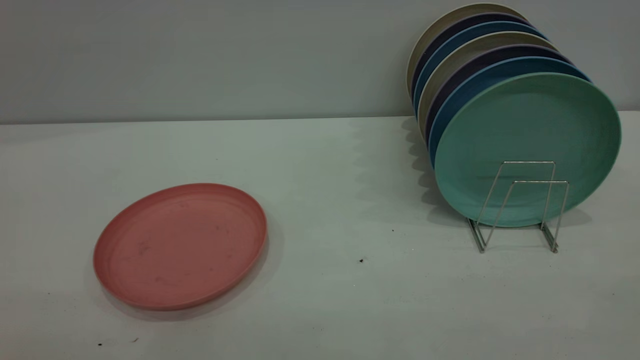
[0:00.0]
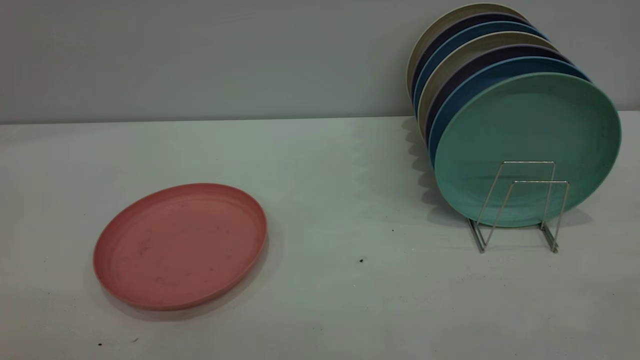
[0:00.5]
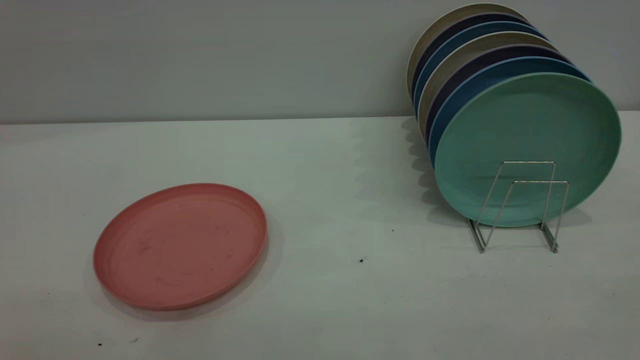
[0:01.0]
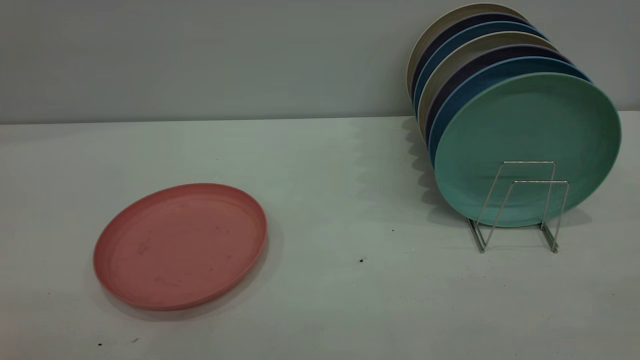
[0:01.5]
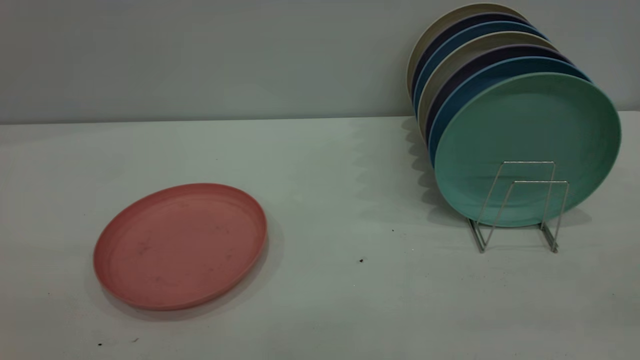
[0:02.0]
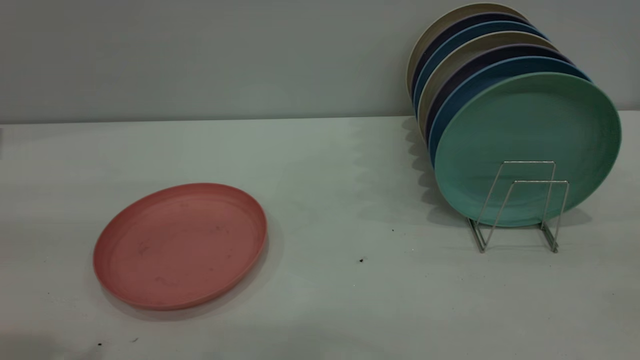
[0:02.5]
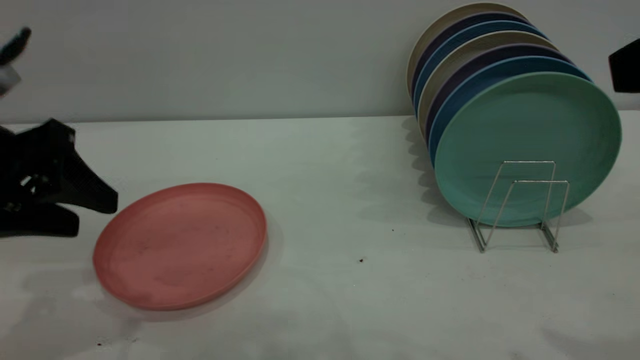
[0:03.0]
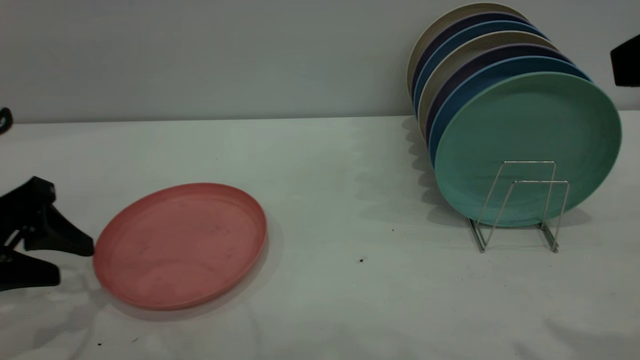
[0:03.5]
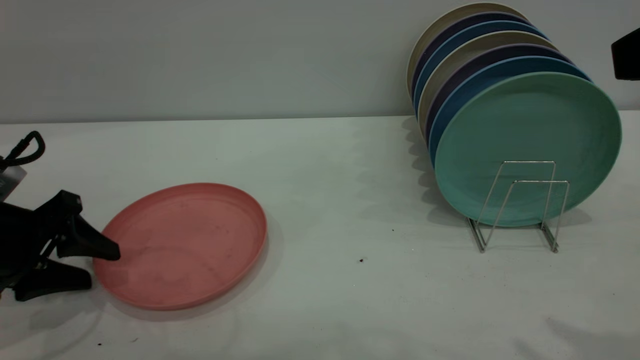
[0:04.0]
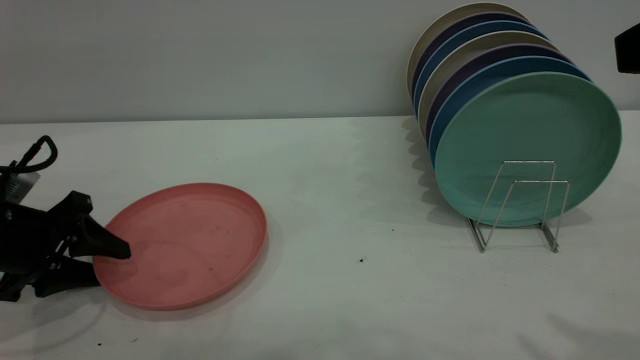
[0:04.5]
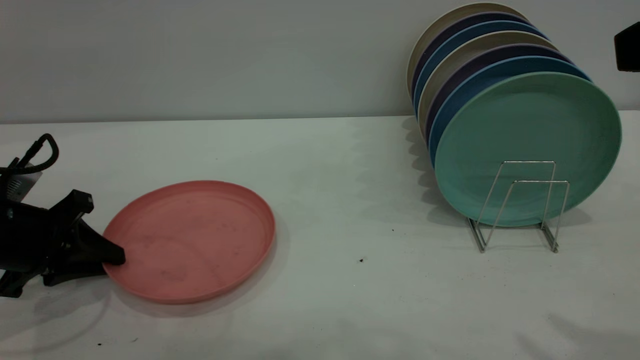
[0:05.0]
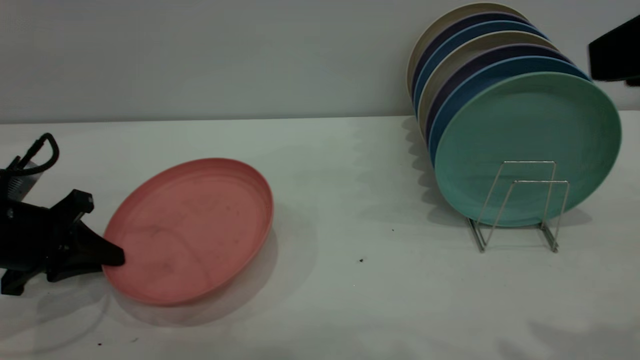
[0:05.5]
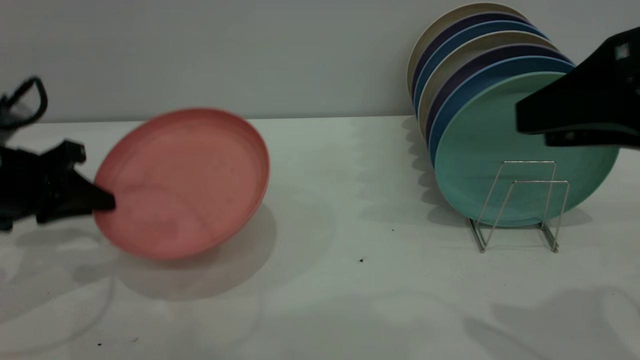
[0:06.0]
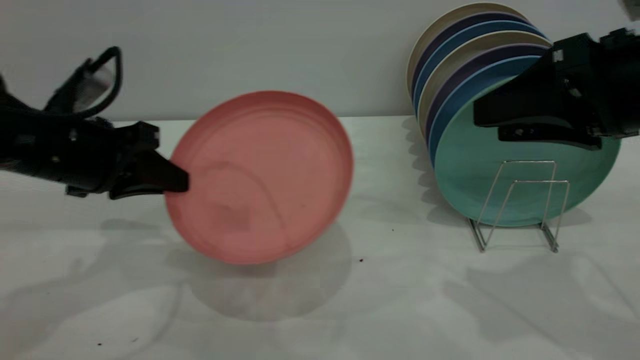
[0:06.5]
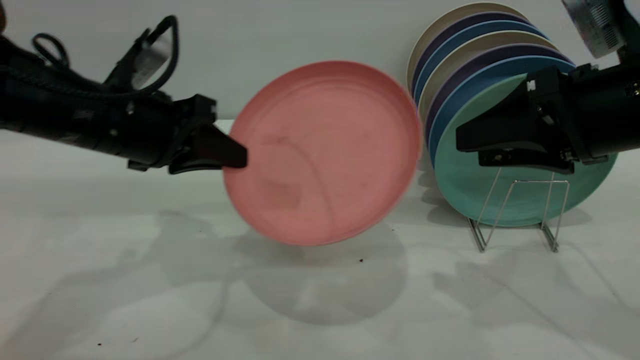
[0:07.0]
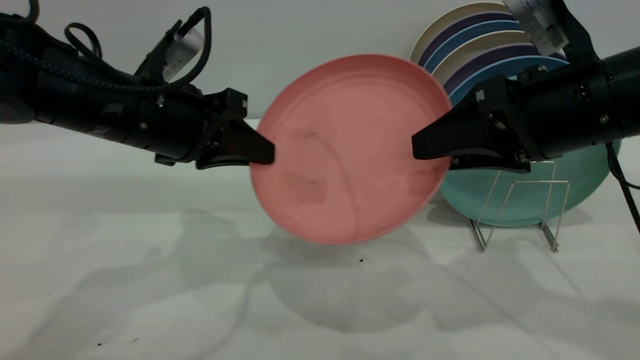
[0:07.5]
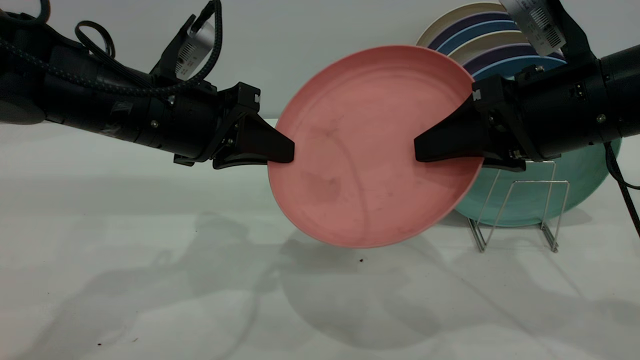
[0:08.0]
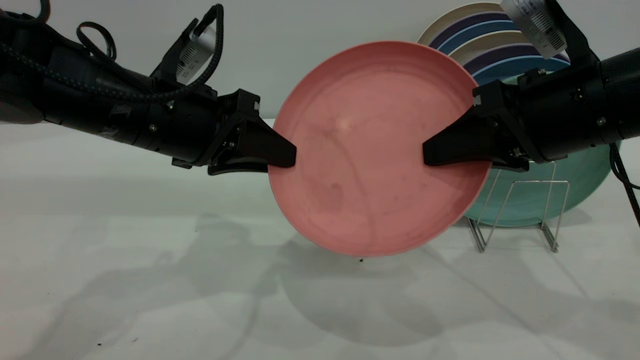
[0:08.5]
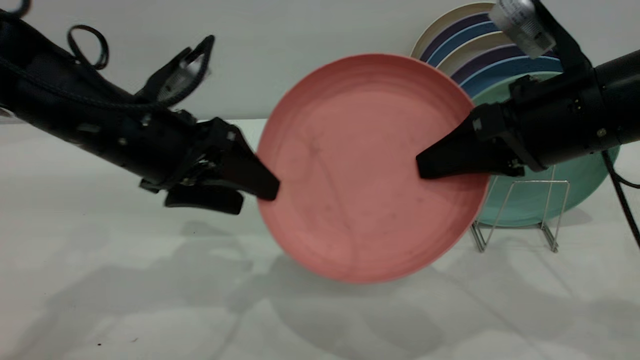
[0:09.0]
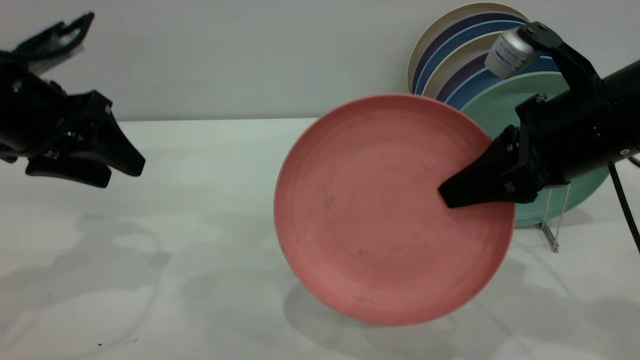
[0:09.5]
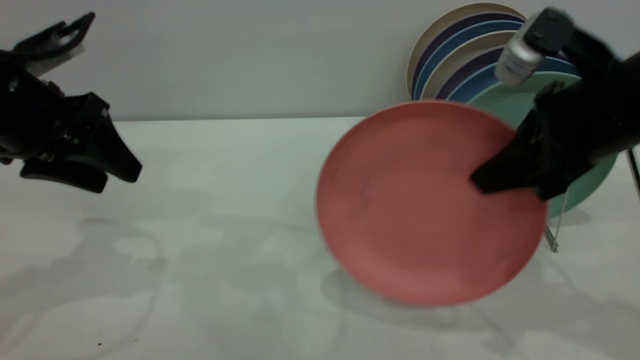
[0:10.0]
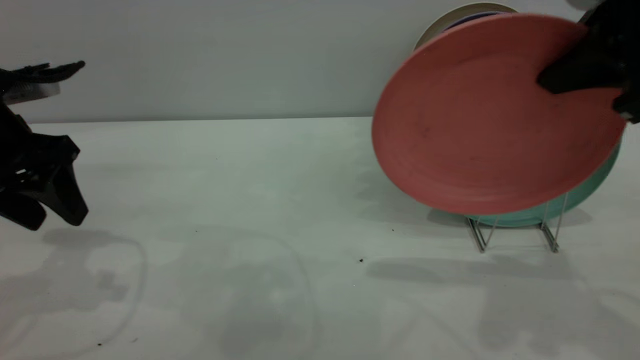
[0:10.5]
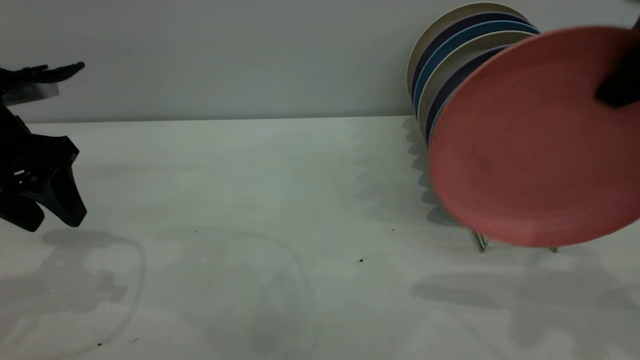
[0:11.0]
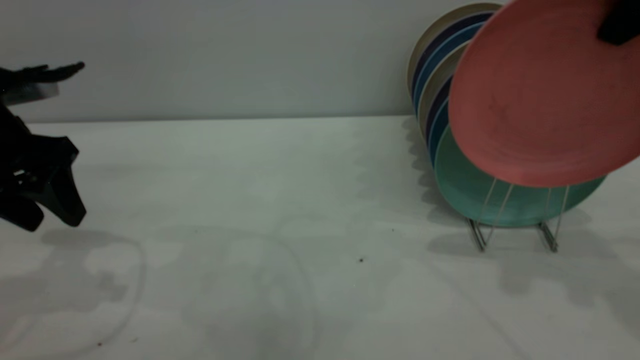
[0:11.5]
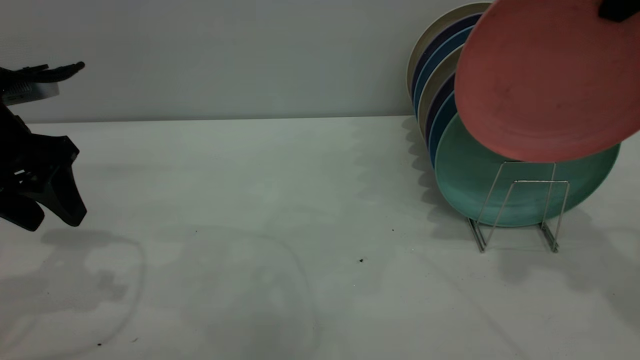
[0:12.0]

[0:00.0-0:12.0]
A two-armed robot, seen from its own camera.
Task of the whole recording: the left gripper grasp the pink plate, the left gripper pass the pink plate to the right gripper, and the right gripper place the pink plate on the plate rack.
Step, 0:00.0 to 0:05.5: Pick up the plate with the left gripper.
Step, 0:06.0 to 0:09.0: Pass the plate from the left gripper to the right gripper.
0:02.0 to 0:04.0: The left gripper goes roughly 35 cm downward and forward.
0:04.0 to 0:06.0: The left gripper moves some 5 cm, and closes its fingers, while the right gripper moves downward, some 5 cm.
0:06.0 to 0:08.0: The right gripper moves forward and downward, about 10 cm, and closes, while the left gripper travels to the right by about 15 cm.
0:08.0 to 0:10.0: The left gripper is displaced to the left by about 10 cm, and opens its fingers; the right gripper closes up.
0:10.0 to 0:12.0: The right gripper goes approximately 15 cm upward.

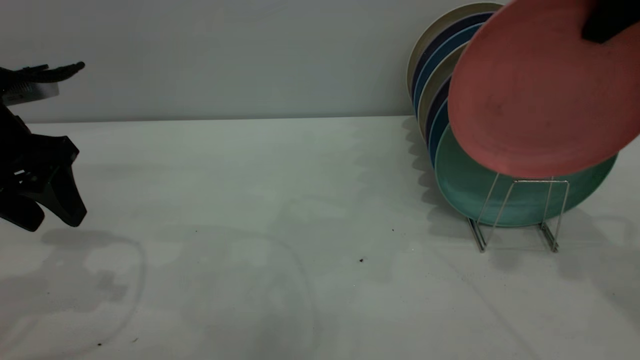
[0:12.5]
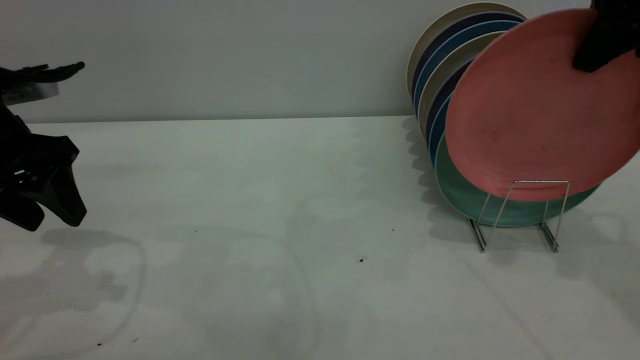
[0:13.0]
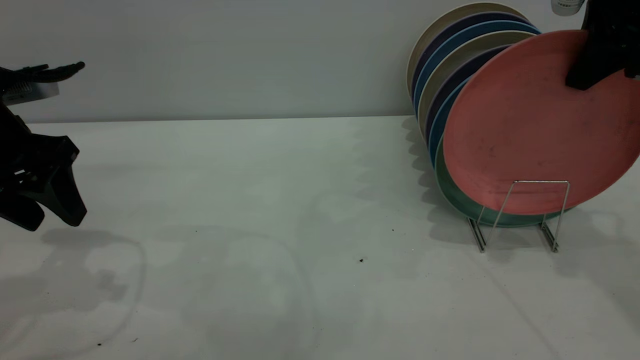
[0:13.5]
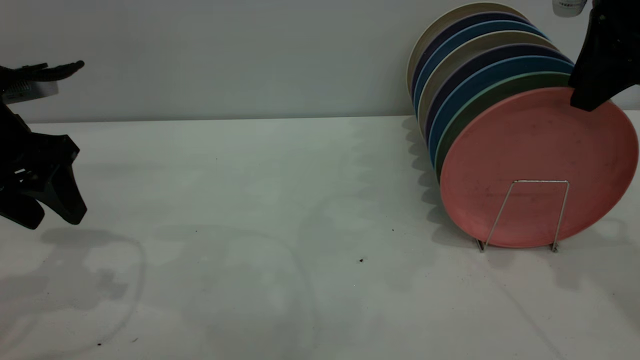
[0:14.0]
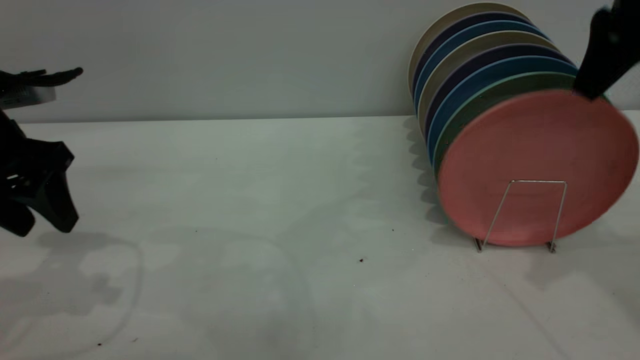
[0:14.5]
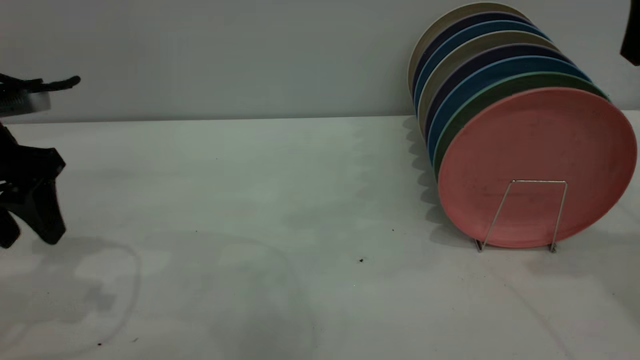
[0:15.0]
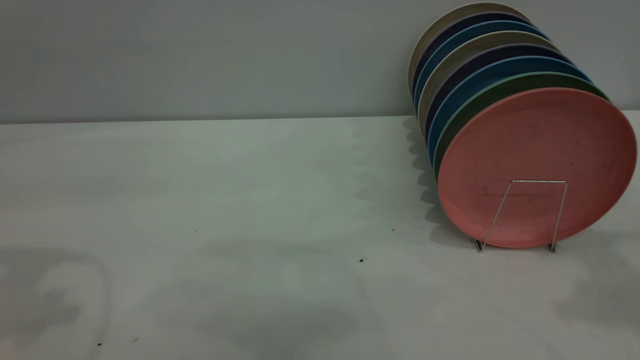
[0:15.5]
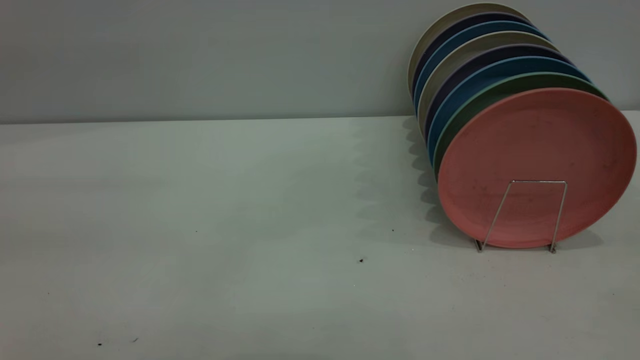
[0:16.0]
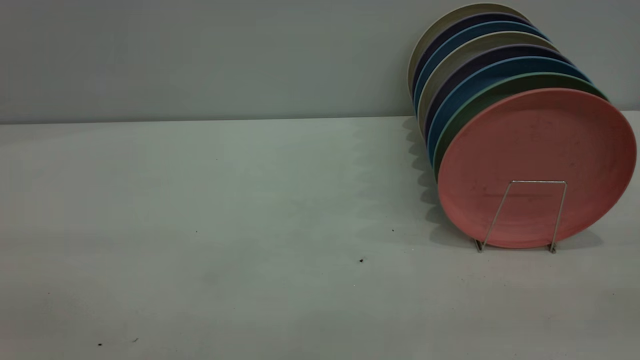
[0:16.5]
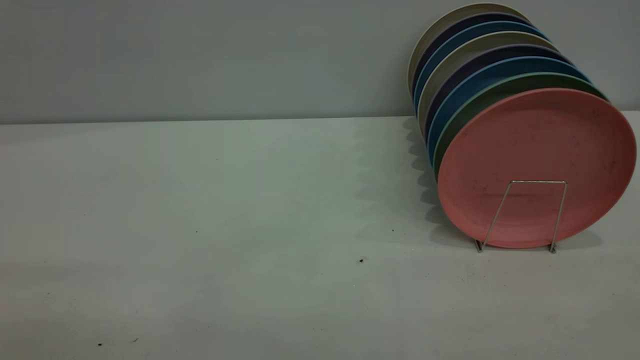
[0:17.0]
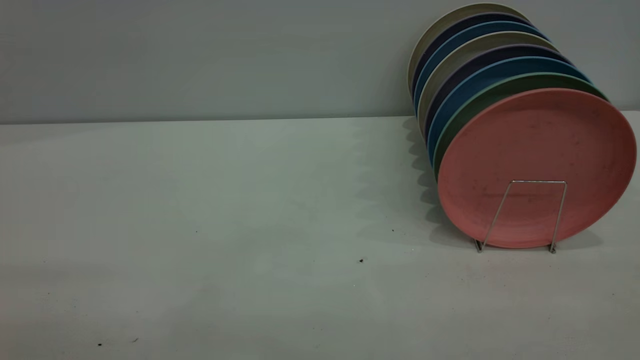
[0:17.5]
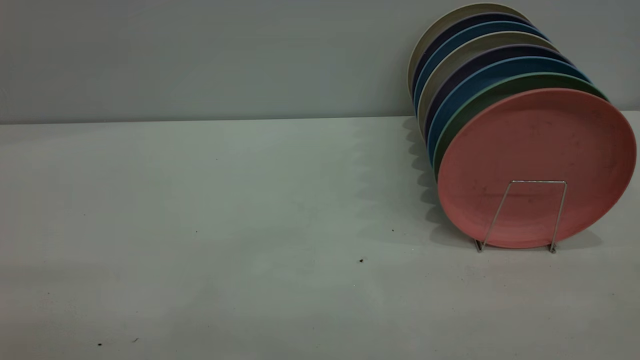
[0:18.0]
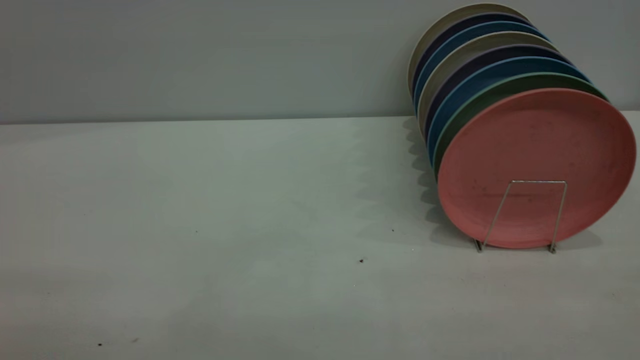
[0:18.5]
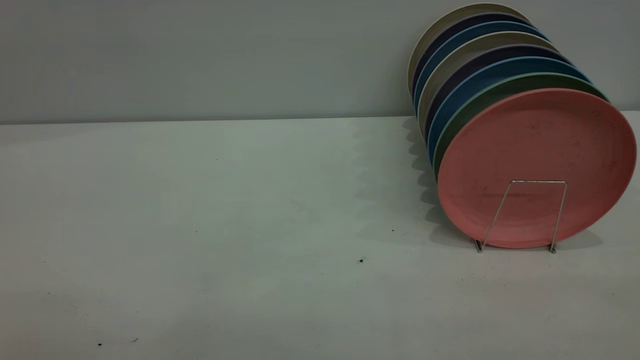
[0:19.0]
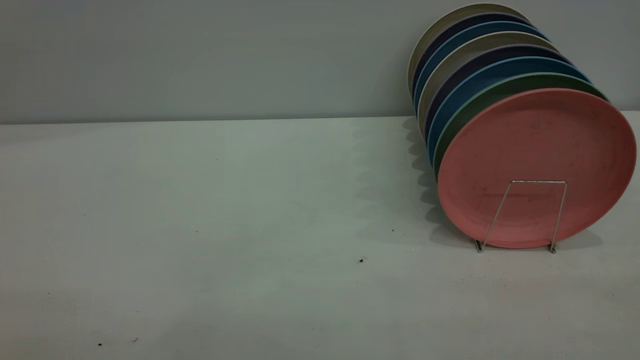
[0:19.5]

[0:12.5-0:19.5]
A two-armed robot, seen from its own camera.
Task of the whole recording: the left gripper grasp the pink plate, the left gripper pass the pink plate to the right gripper, and the right gripper place the pink plate on the plate rack.
Step, 0:12.5 to 0:14.5: Place the plate on the shelf.
0:12.5 to 0:14.5: The right gripper opens its fingers.
0:14.5 to 0:16.0: The right gripper is displaced backward by about 25 cm, while the left gripper moves backward and upward, roughly 25 cm.
